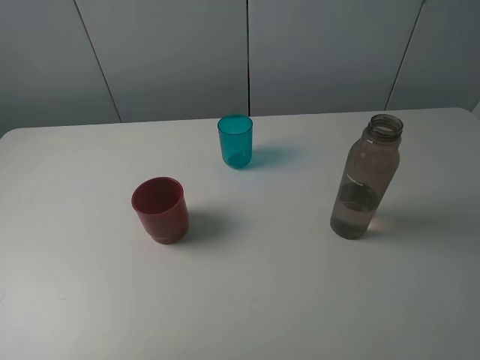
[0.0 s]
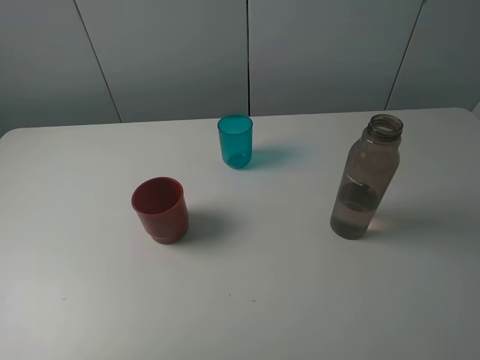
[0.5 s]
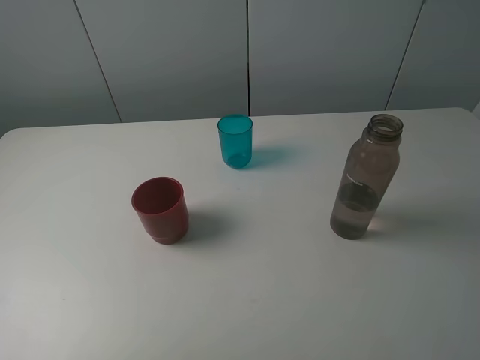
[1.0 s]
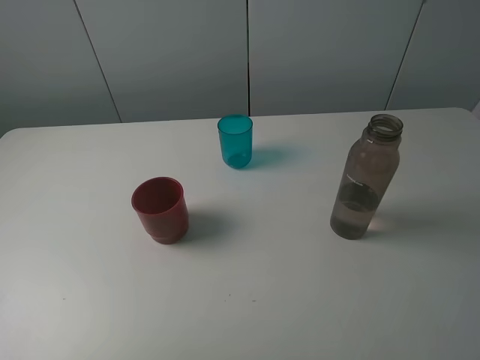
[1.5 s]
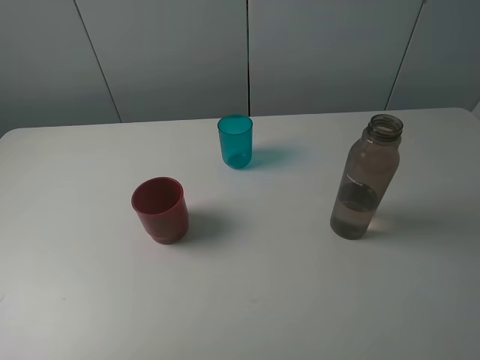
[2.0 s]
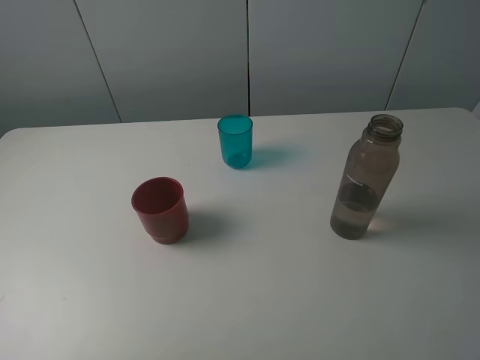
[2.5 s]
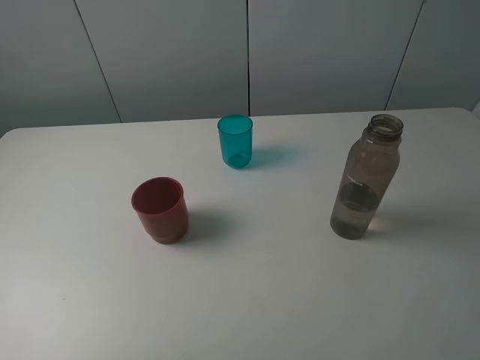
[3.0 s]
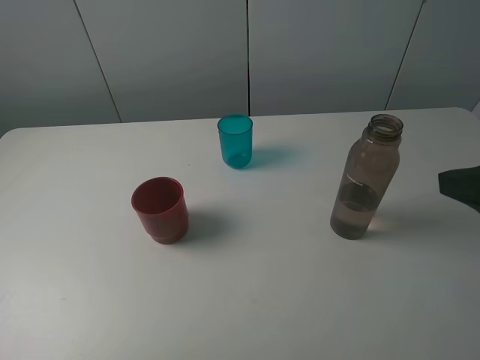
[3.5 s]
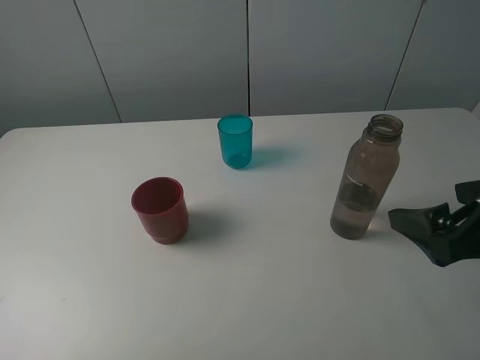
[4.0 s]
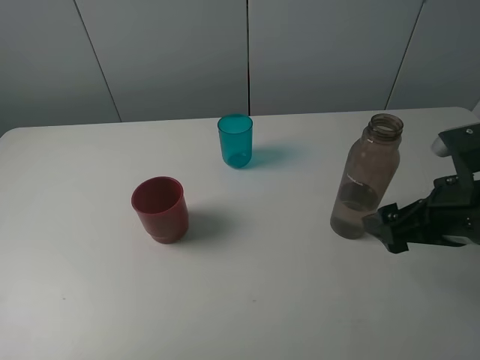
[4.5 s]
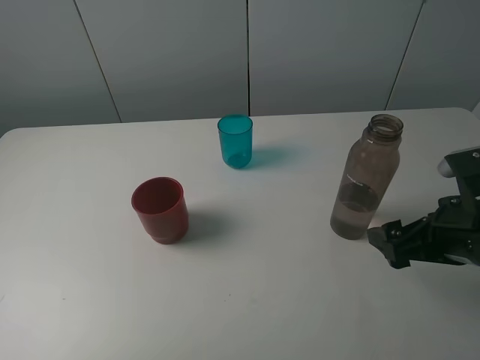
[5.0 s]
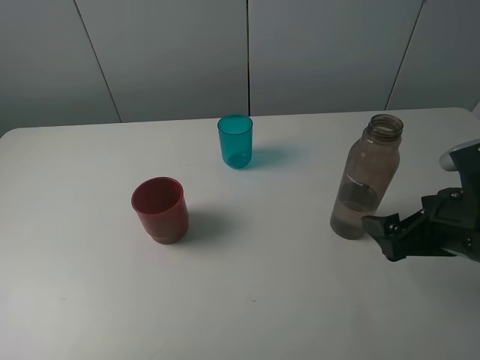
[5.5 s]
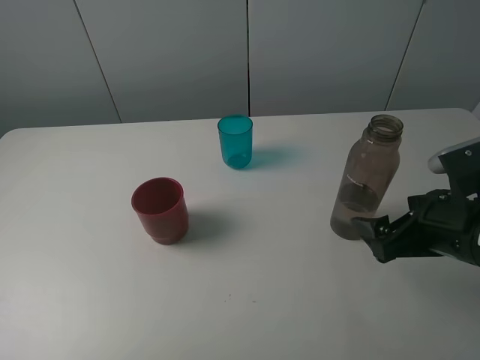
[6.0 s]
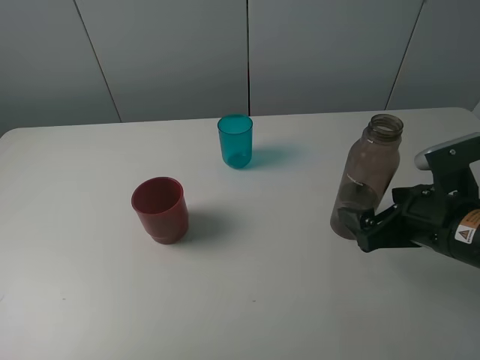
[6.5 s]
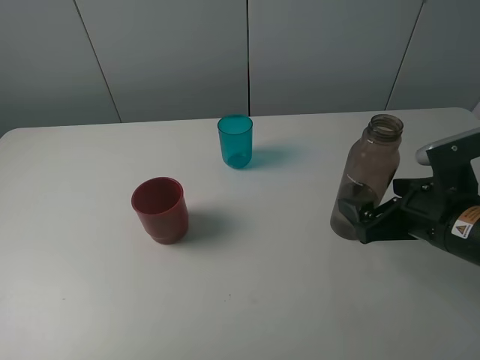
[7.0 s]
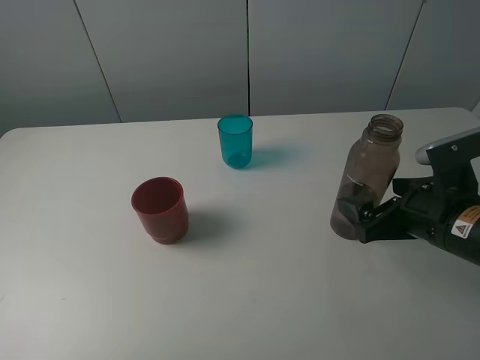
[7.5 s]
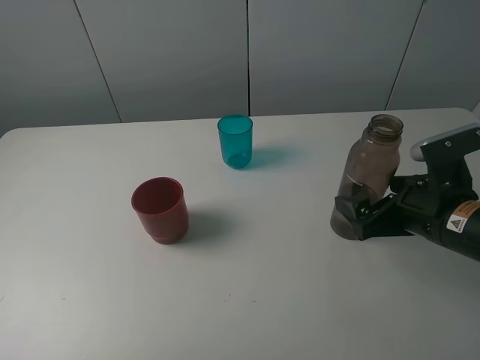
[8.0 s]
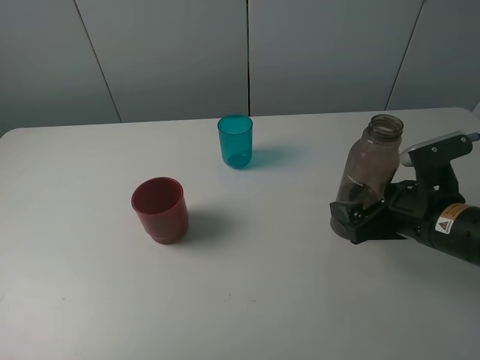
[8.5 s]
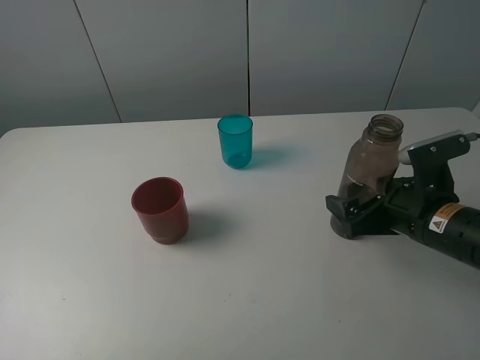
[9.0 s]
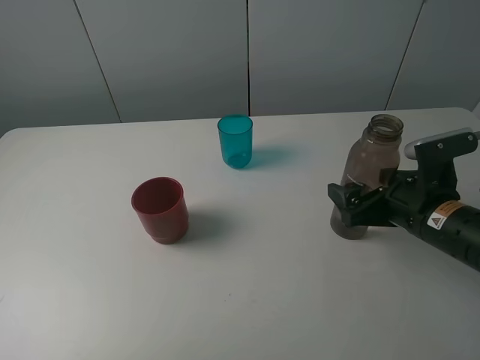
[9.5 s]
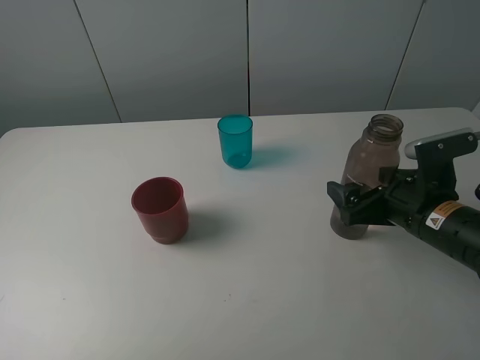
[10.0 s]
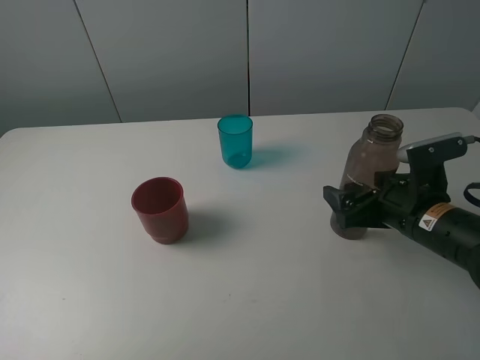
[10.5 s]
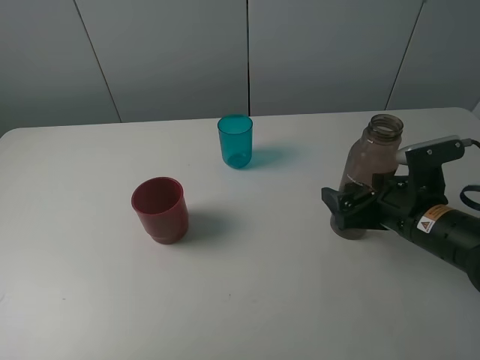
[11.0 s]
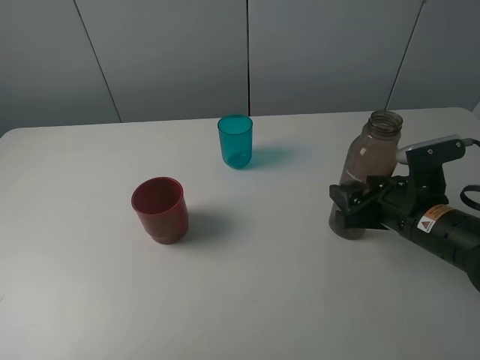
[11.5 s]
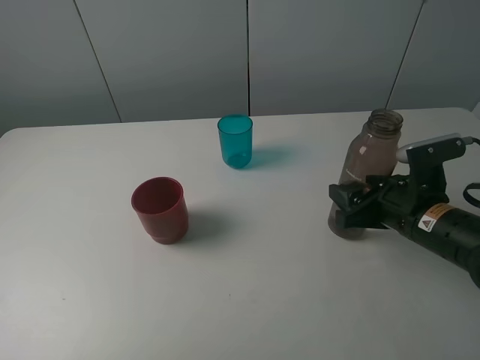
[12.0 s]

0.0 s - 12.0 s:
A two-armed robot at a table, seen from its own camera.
Task of the whole recording: pick up the bottle and pour water into the cup, then pick up the cup containing water and pour it into another cup.
Step, 0.0 s - 11.5 s: Grasp the brown bottle with the right gripper.
0.0 s - 2.0 s: Both grippers stay about where they are.
2.0 s - 4.0 s: The right gripper is displaced forward and downward by approximately 15 cm.
4.0 s - 6.0 s: The right gripper is displaced downward by roughly 5 cm.
6.0 s - 10.0 s: The grippers move only a little.
10.0 s - 12.0 s: The right gripper closes up.

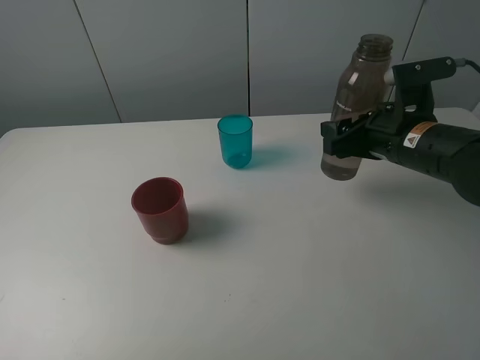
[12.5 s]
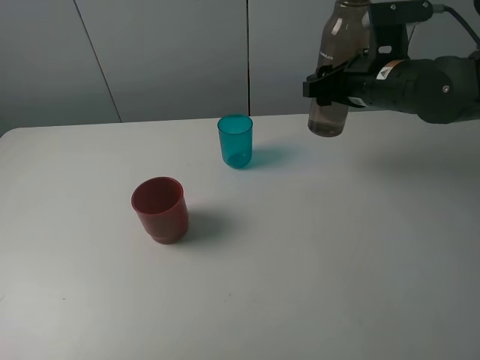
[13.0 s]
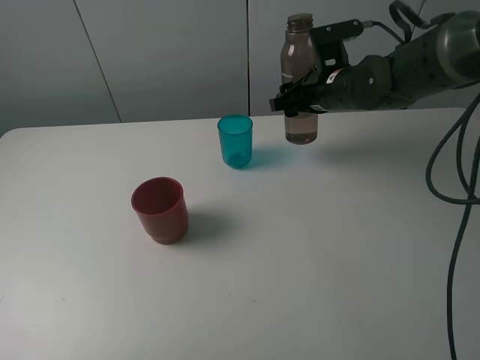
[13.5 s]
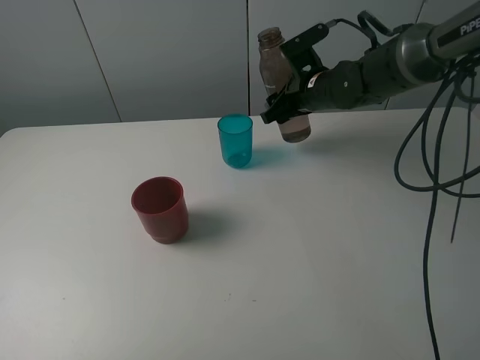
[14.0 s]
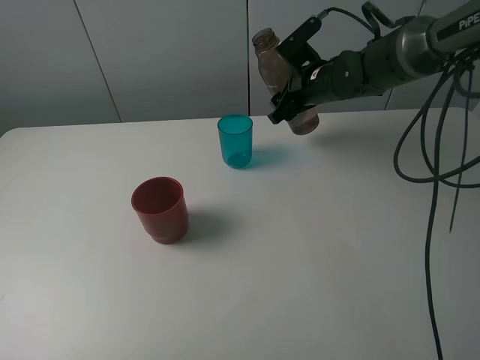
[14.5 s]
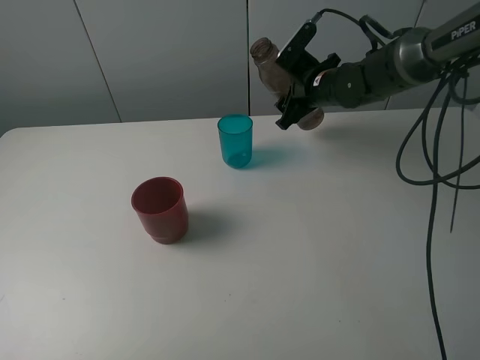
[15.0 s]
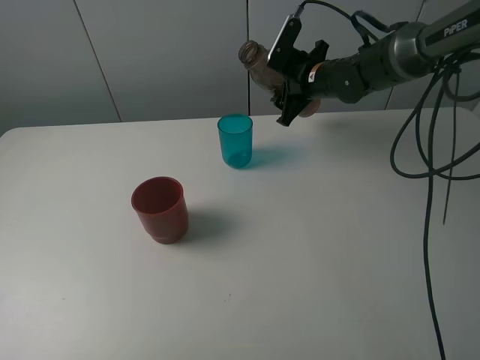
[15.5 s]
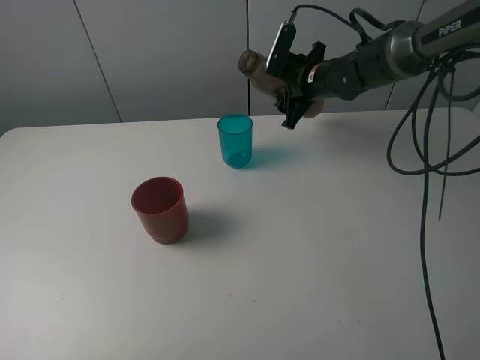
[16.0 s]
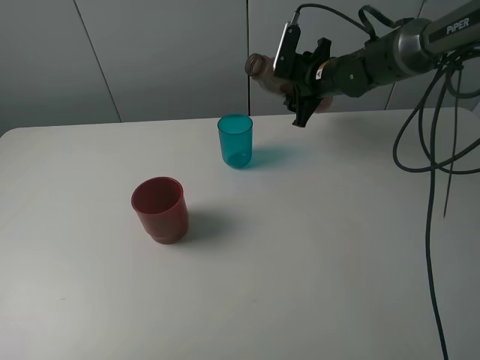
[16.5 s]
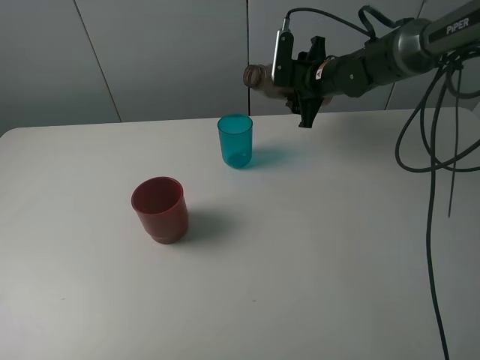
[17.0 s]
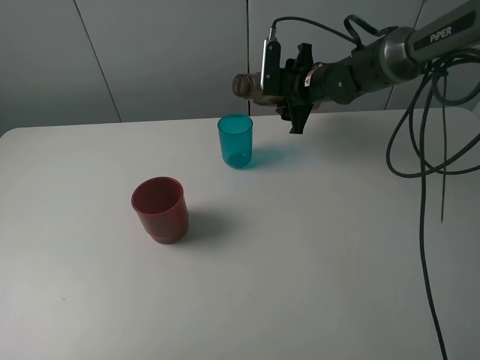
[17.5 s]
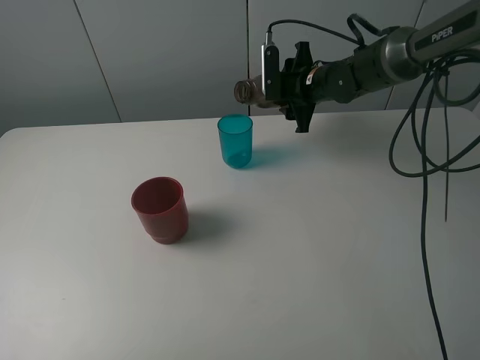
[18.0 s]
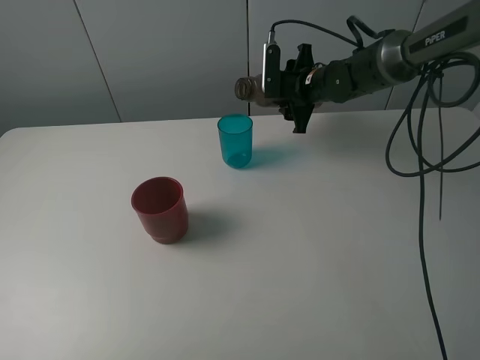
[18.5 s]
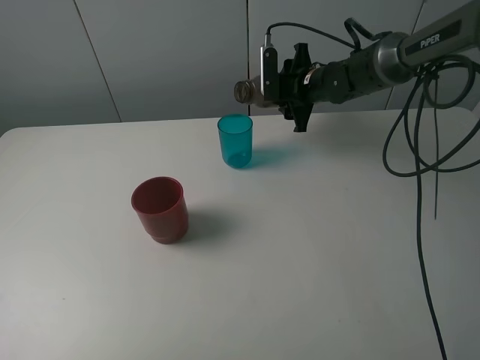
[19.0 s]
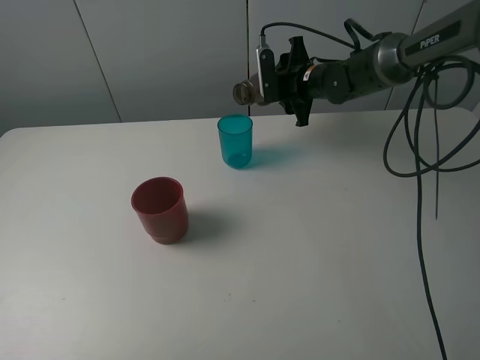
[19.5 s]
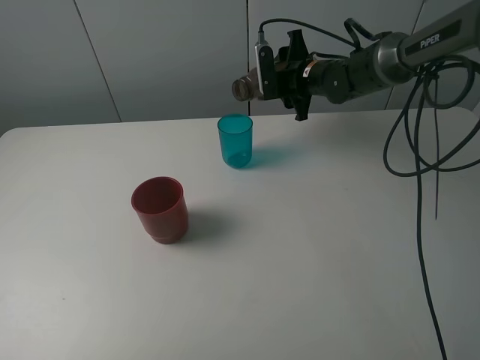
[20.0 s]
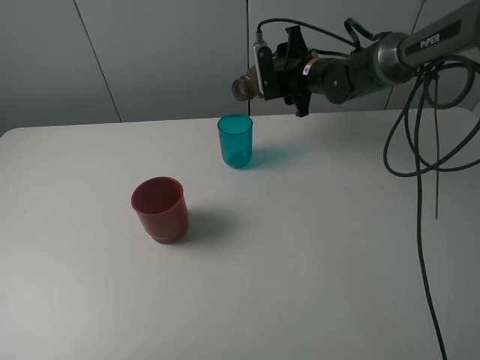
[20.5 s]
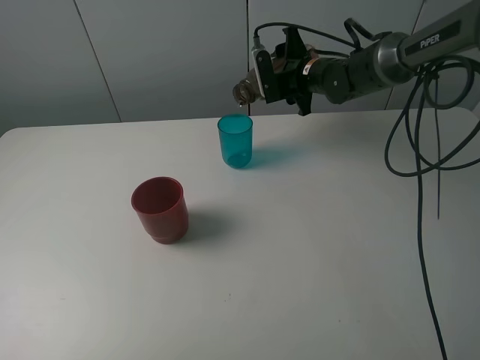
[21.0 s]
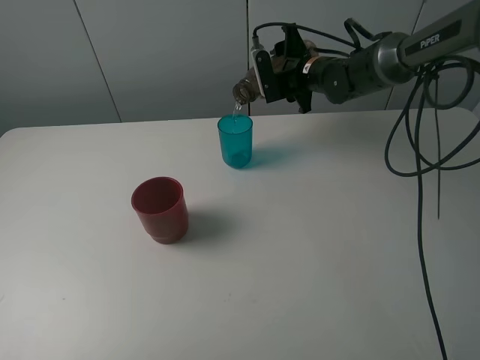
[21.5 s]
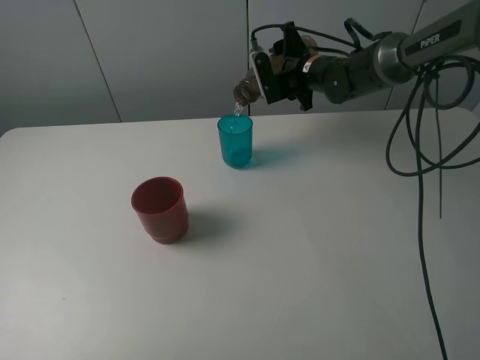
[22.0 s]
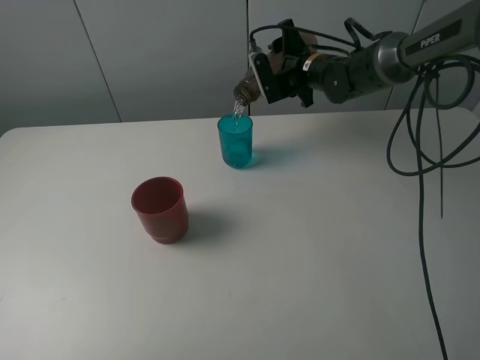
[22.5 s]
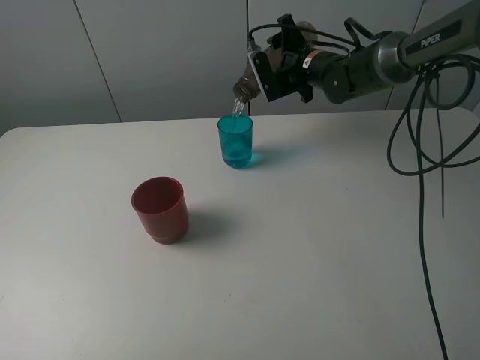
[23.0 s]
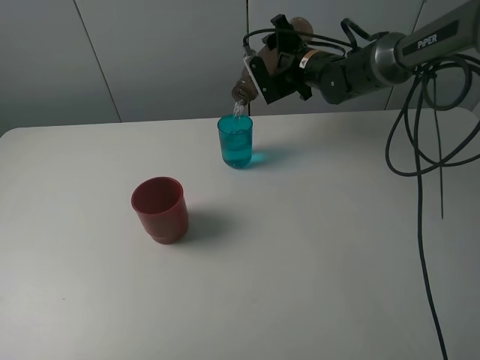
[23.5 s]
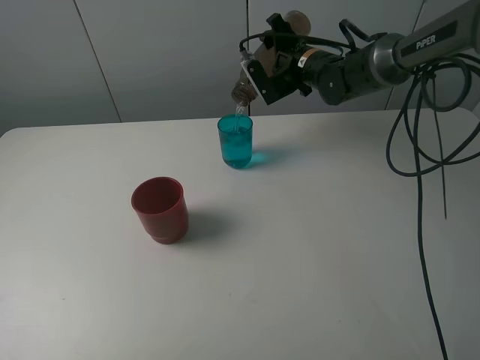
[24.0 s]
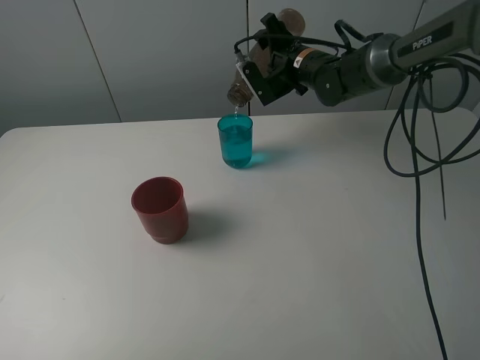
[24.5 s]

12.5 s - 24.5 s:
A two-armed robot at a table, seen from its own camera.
Task of the whole recording: pick up the bottle and pour water into the cup, then pick up the cup containing water and pour it into another cup.
12.5 s - 14.5 s: The right gripper heads forward and to the left, covering roughly 15 cm.
16.5 s - 18.5 s: The grippers make only small movements.
20.5 s - 22.5 s: There are only small adjustments of the grippers.
22.5 s - 24.5 s: There are only small adjustments of the grippers.

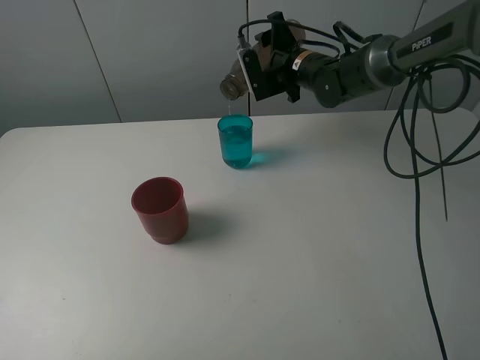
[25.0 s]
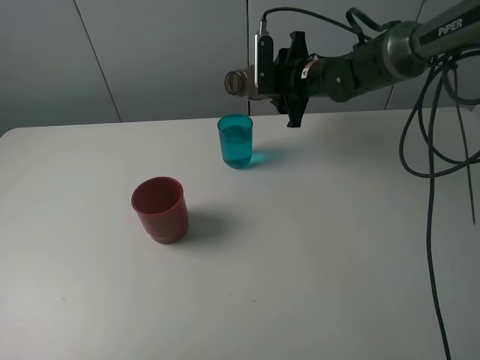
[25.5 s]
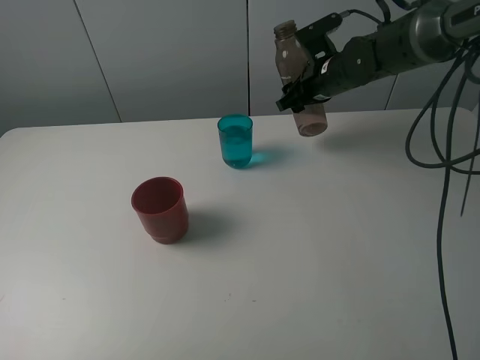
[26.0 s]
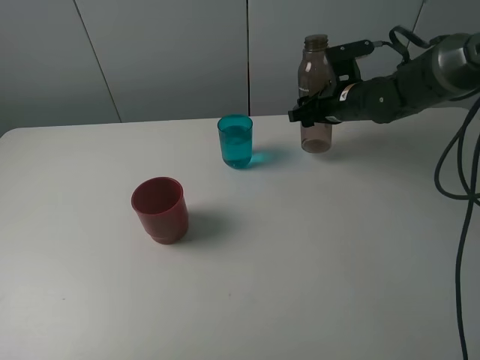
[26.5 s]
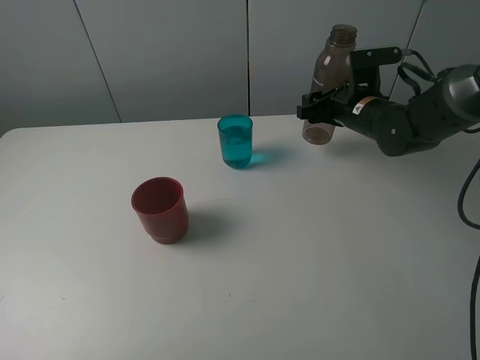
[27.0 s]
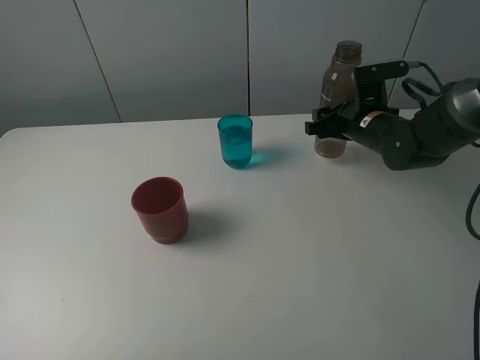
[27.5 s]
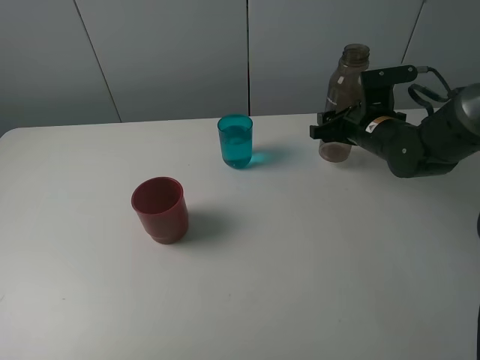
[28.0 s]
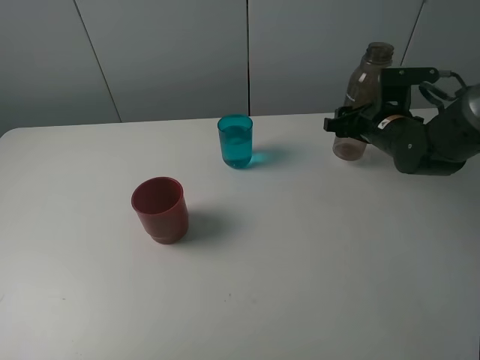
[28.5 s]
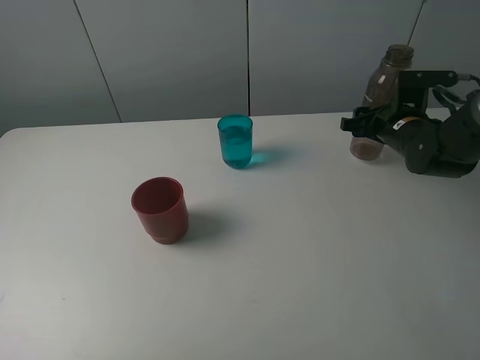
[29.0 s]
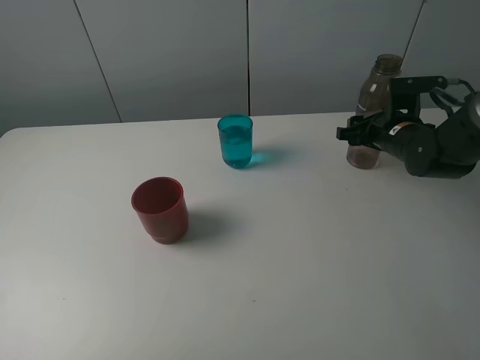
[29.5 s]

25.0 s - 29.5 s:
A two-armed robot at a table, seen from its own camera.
Task of the whole recording: pick up the bottle and pour water into the cup, then pick up the cup containing water and pour it into another cup.
25.0 s - 27.0 s: The right gripper travels backward and to the right by about 10 cm.
27.0 s - 29.5 s: The right gripper goes some 5 cm to the right.
